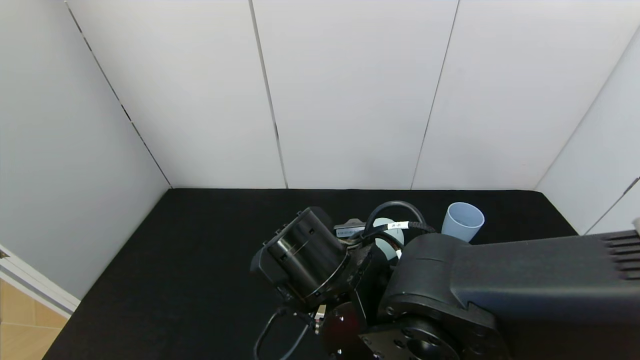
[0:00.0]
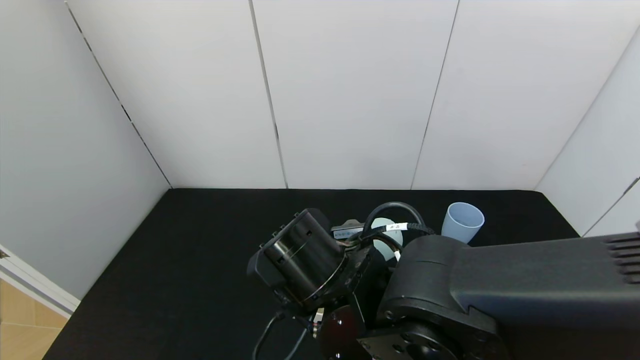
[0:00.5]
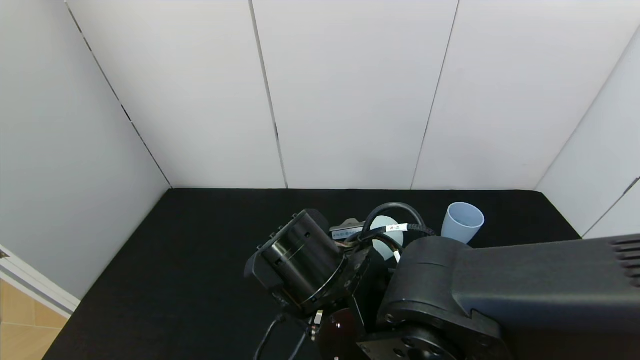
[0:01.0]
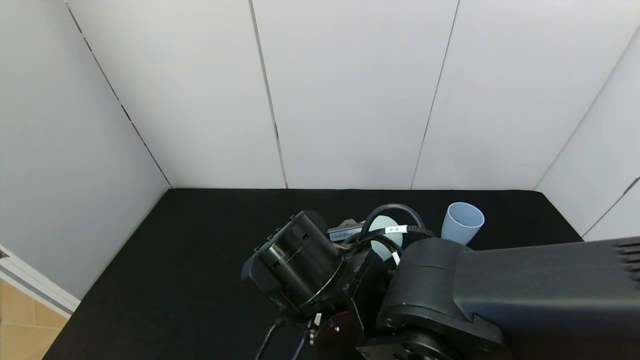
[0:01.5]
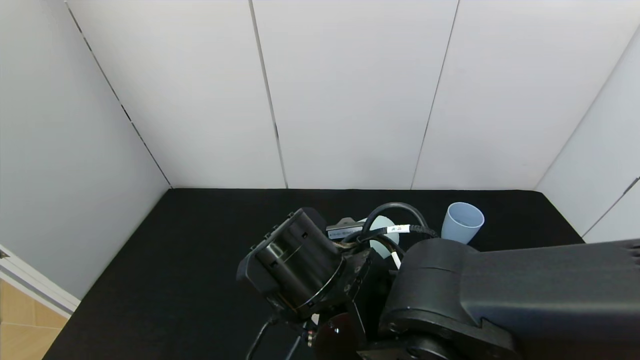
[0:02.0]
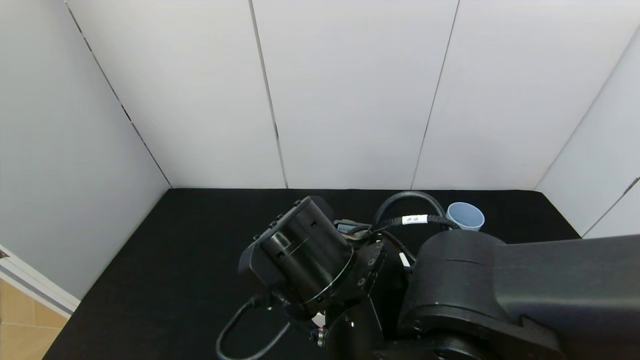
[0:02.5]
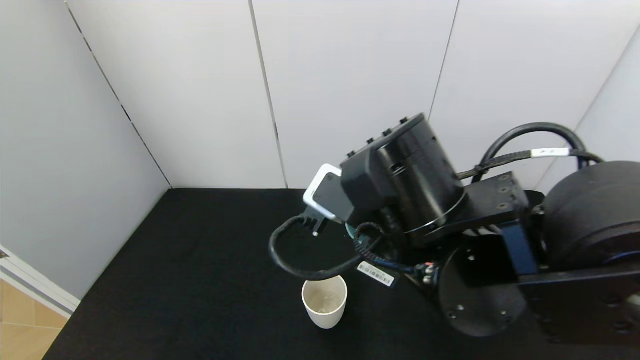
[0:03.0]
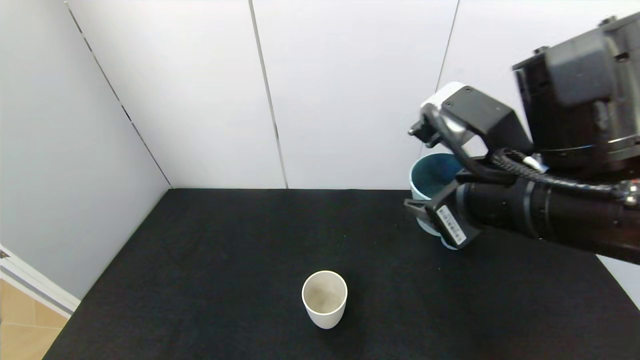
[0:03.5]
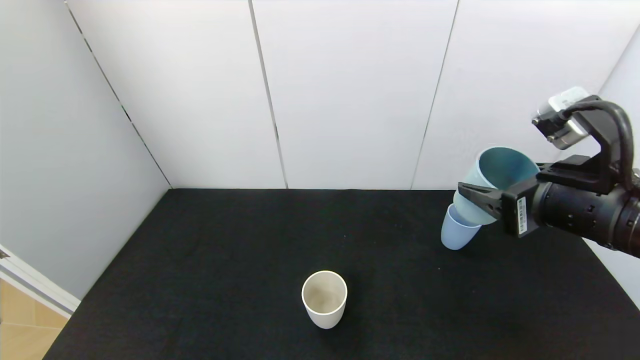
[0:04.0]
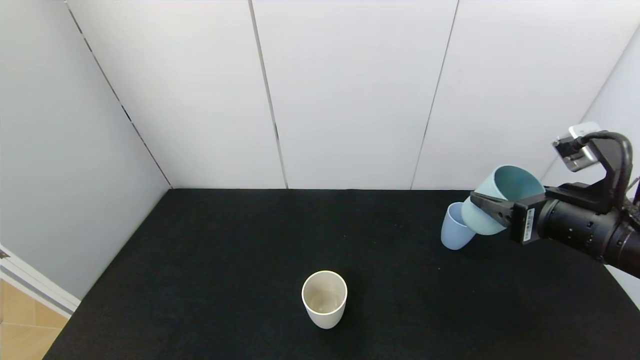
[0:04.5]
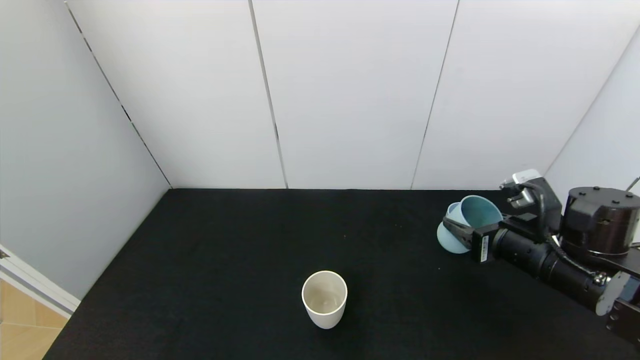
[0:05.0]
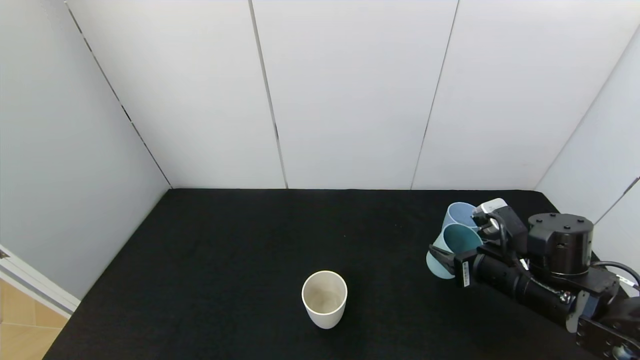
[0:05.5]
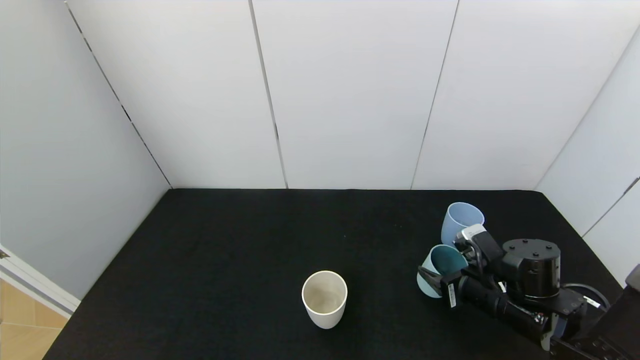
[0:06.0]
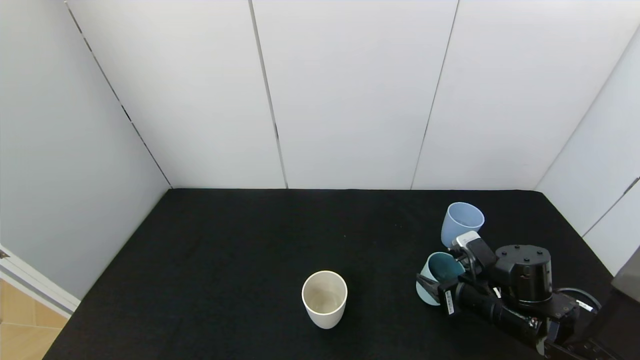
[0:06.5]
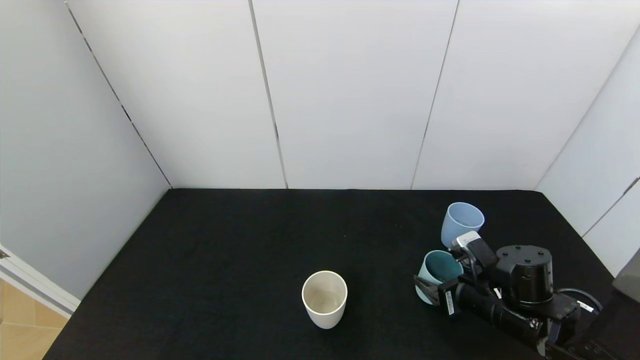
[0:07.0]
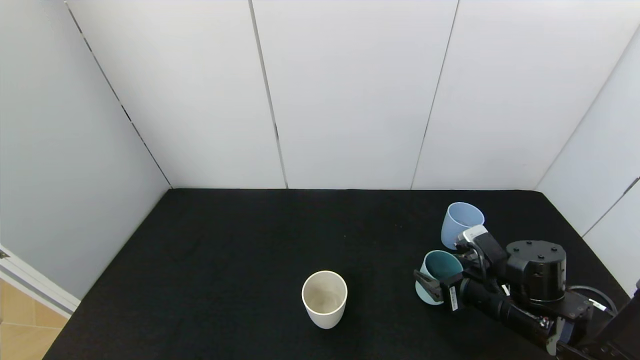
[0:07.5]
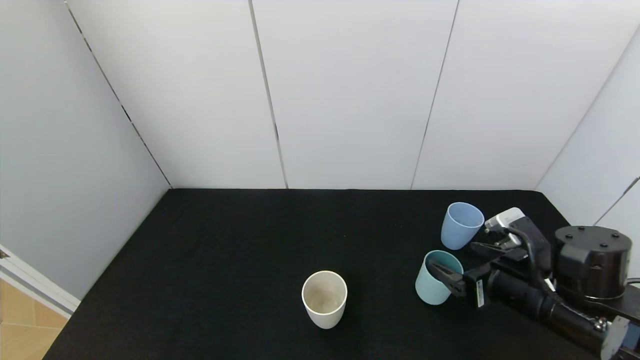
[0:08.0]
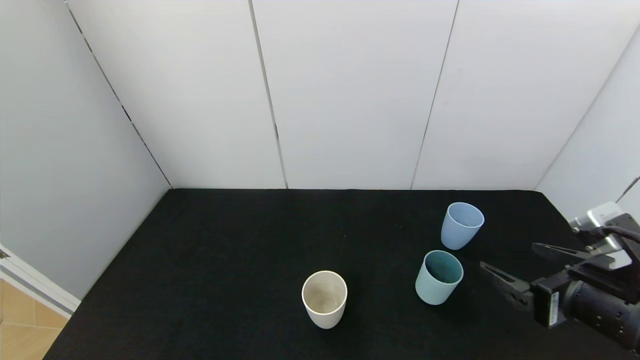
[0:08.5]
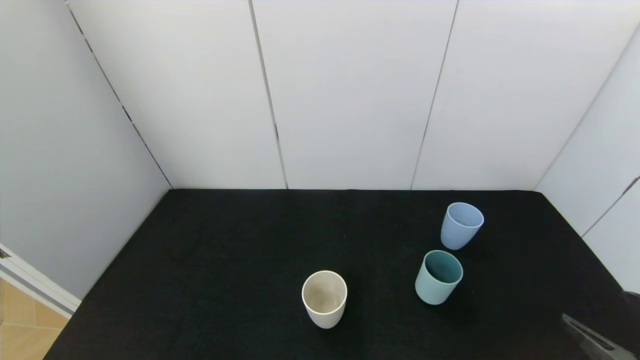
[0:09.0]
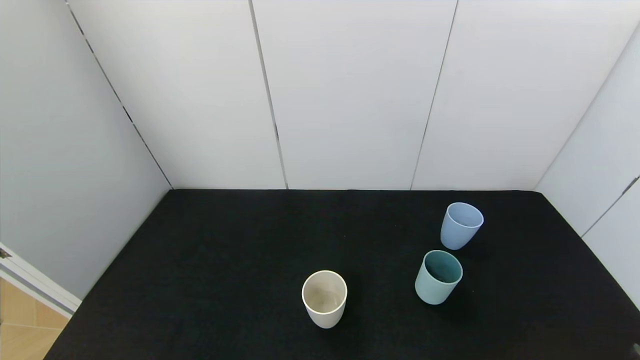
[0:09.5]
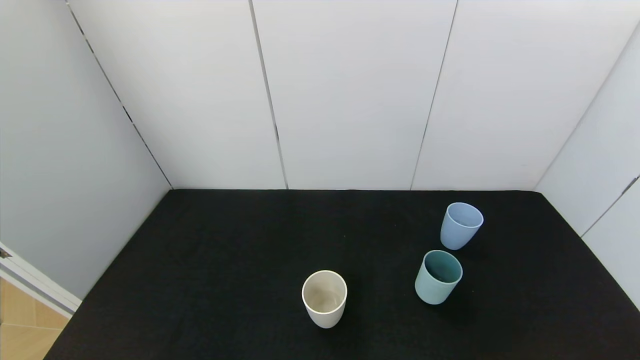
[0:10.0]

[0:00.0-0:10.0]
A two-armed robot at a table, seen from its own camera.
Task of the whole recording: use the gripper to pour the water into the other two cups on black table.
Step, 0:00.0 to 0:02.5: Pour water from green cup to white cup with the right gripper.
Step, 0:03.0 to 0:07.5: Place the green cup with the right gripper.
0:00.0 to 0:02.0: The grippers make only small movements.
0:02.0 to 0:04.0: The right gripper goes roughly 25 cm to the right.
0:04.0 to 0:06.0: The right gripper travels downward by roughly 20 cm.
0:06.0 to 0:08.0: The right gripper travels upward by about 5 cm, and opens its fingers.
0:08.0 to 0:10.0: The right gripper is displaced backward and to the right by roughly 25 cm.

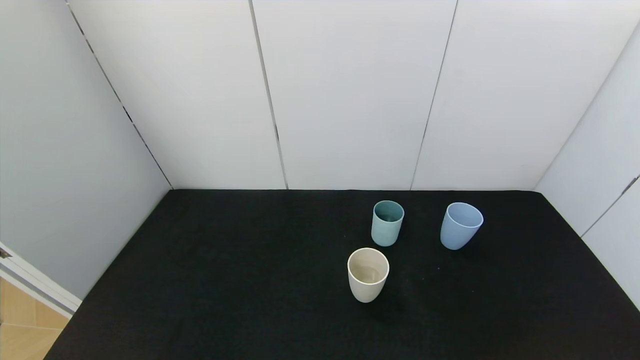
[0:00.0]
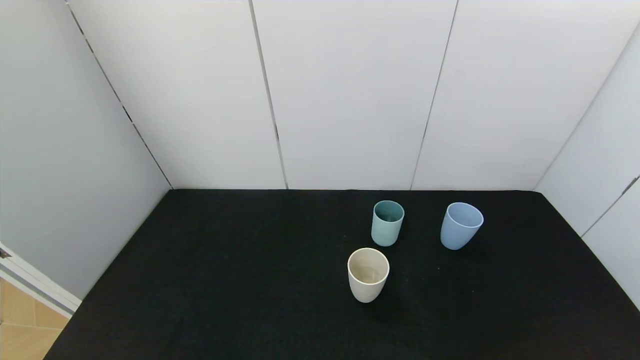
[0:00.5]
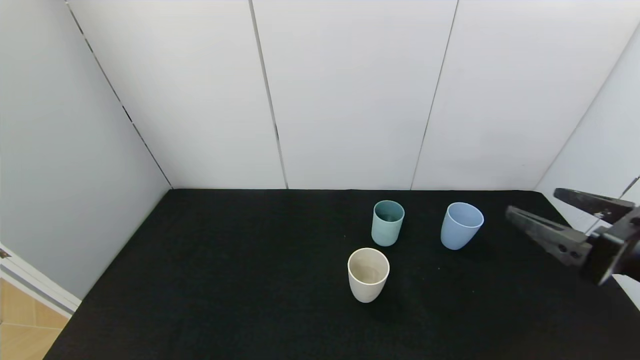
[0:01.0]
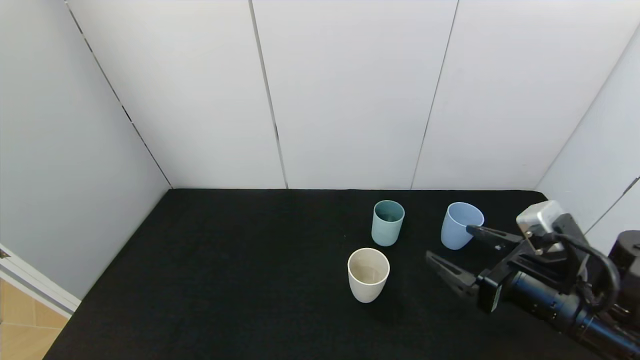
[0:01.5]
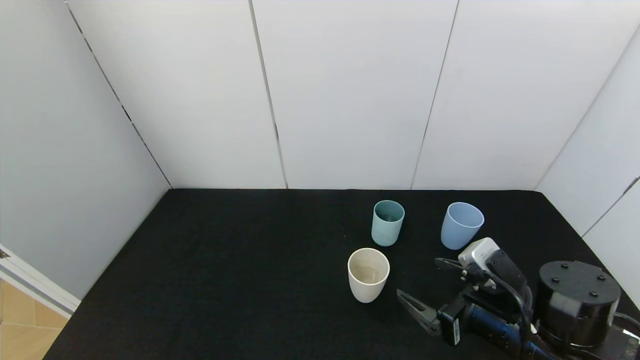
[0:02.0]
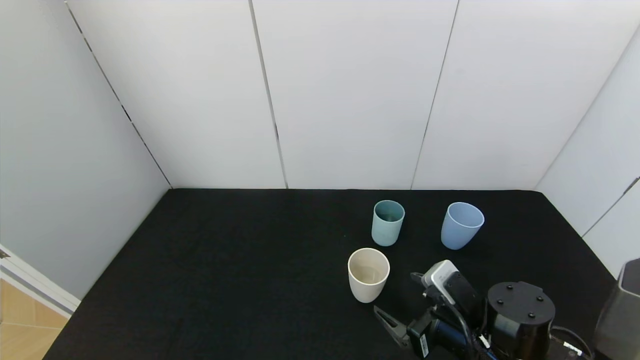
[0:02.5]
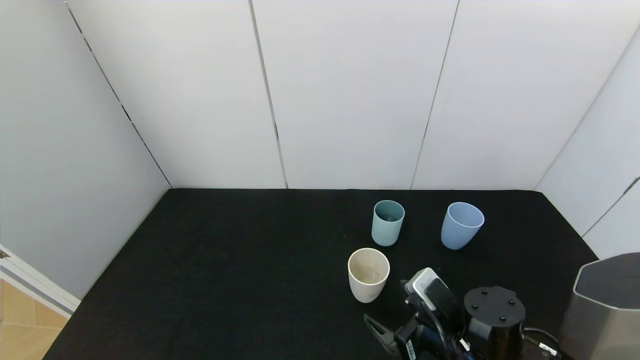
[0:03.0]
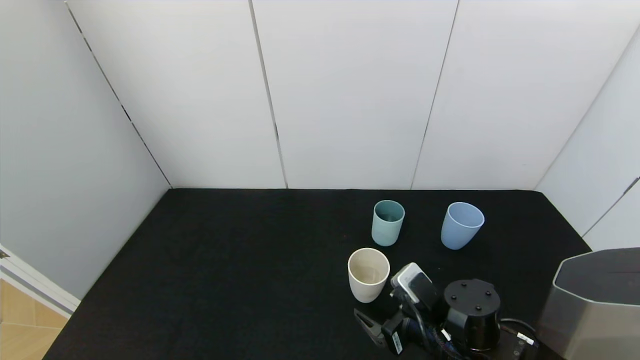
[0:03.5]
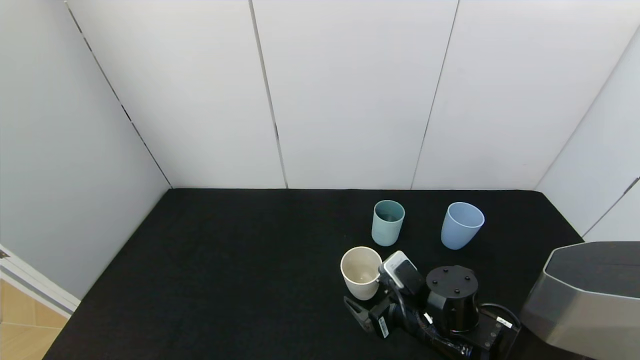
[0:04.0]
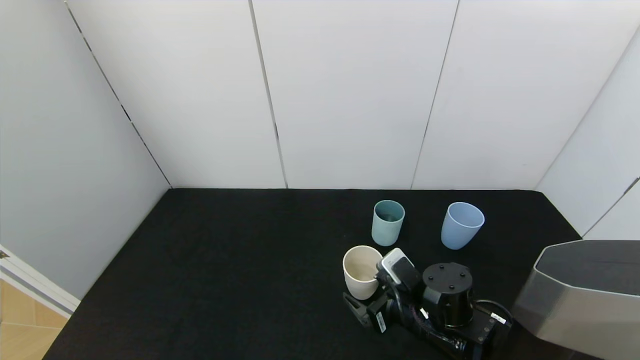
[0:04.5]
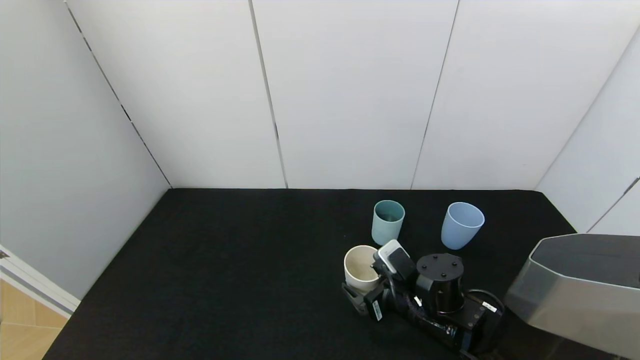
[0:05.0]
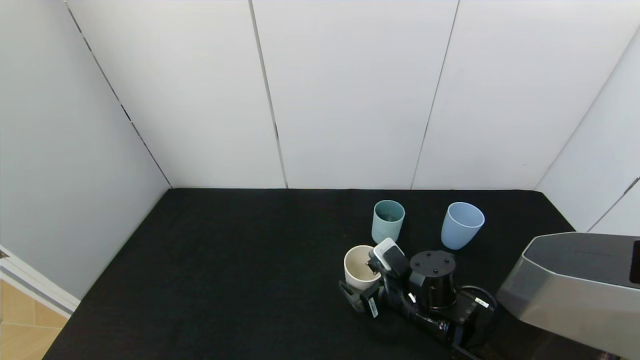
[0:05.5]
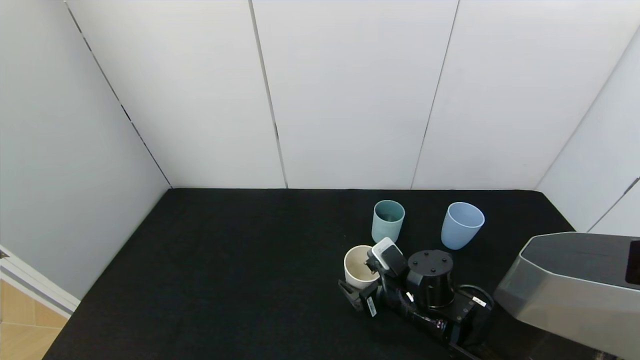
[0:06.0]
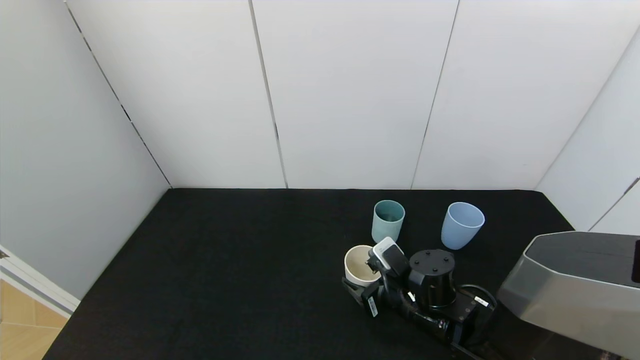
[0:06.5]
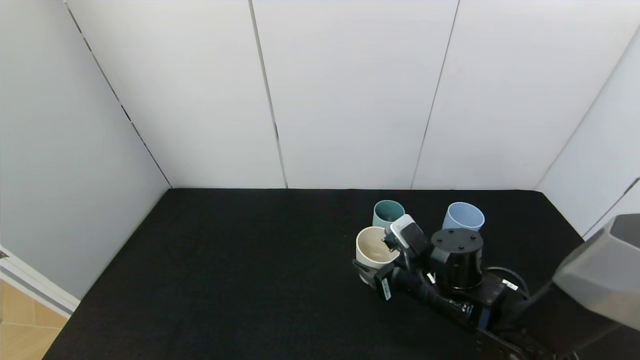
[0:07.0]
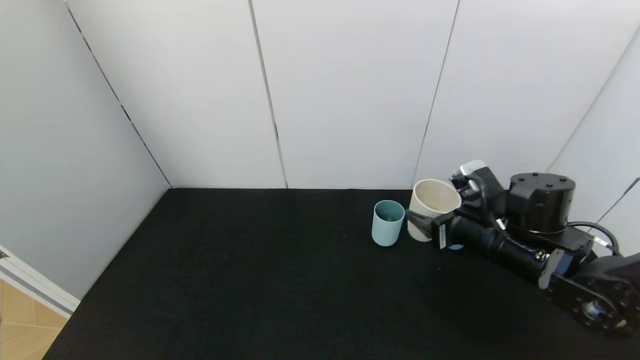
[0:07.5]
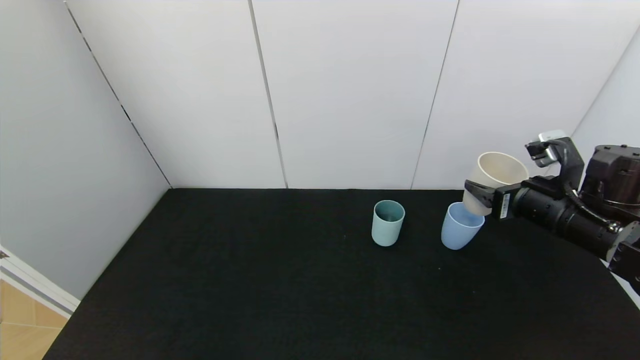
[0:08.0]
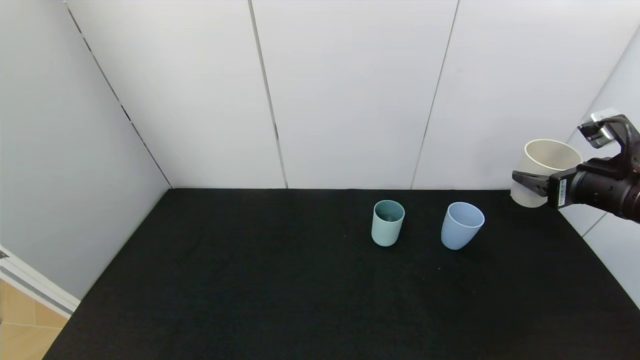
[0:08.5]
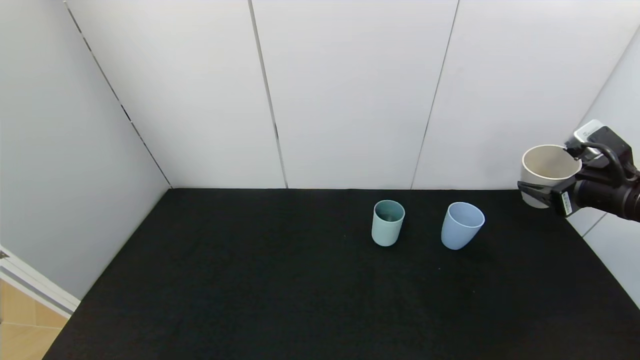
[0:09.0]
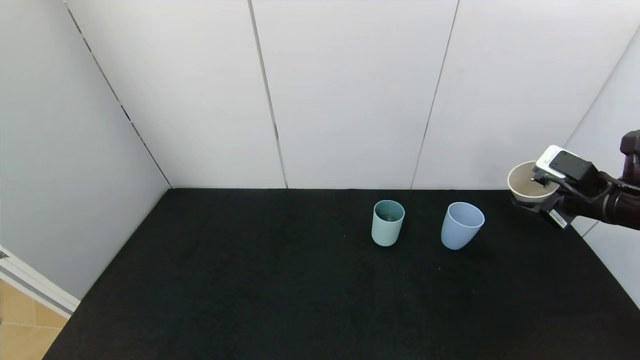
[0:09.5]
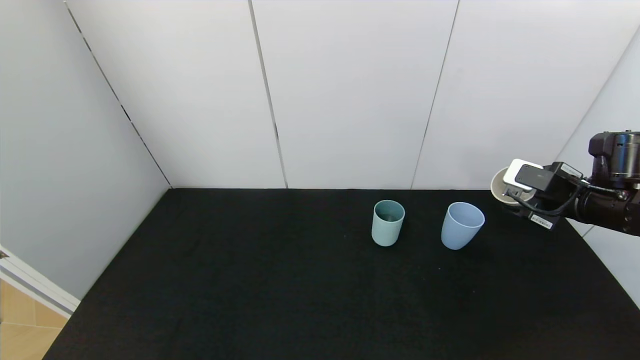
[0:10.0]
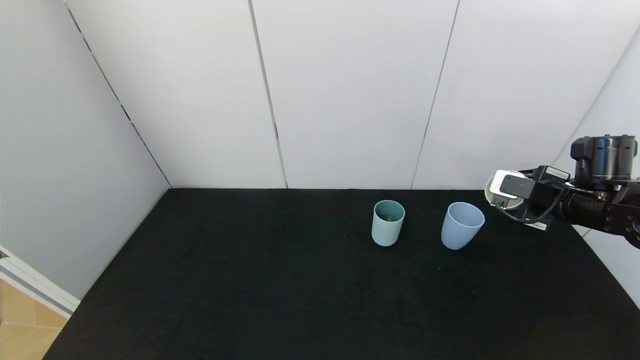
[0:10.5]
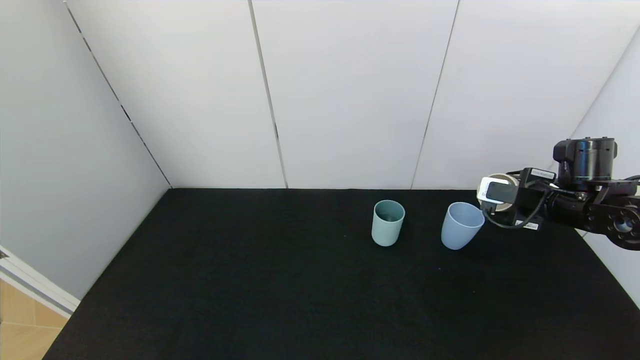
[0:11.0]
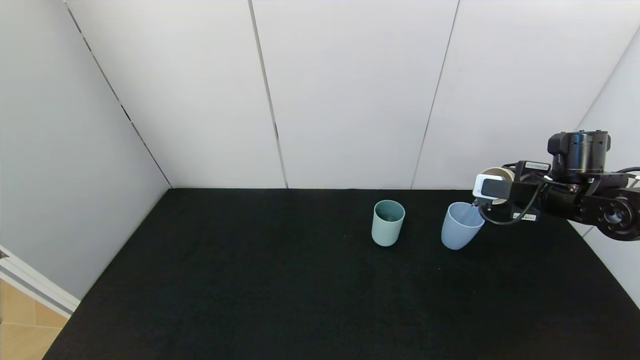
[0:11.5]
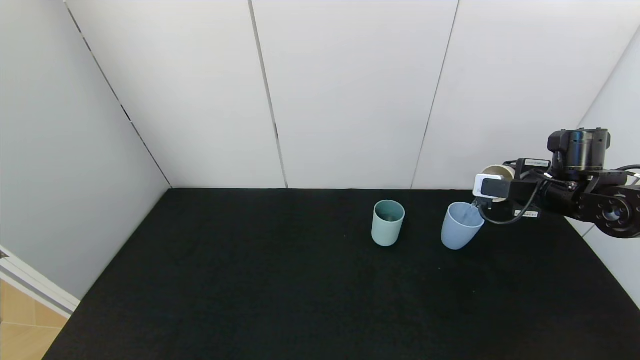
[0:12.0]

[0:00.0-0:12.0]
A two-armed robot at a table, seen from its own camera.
Task of the whole recording: use the gripper to pour the water into the other two cups on black table.
Step, 0:00.0 to 0:06.5: Grasp the white cup with the right gripper.
0:00.0 to 0:02.0: The right gripper travels forward and to the left by roughly 25 cm.
0:02.0 to 0:04.0: The right gripper travels to the left and downward by roughly 10 cm.
0:04.0 to 0:06.0: The grippers stay close to where they were, moving slightly.
0:06.0 to 0:08.0: The right gripper travels to the right and upward by roughly 25 cm, and closes its fingers.
0:08.0 to 0:10.0: The right gripper heads to the right, covering about 5 cm.
